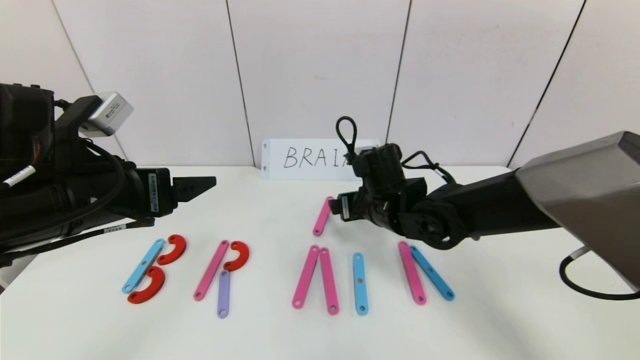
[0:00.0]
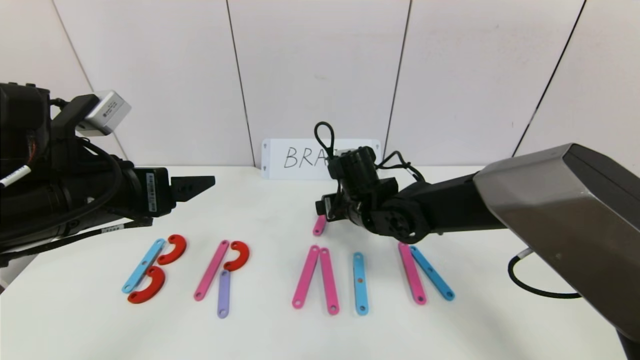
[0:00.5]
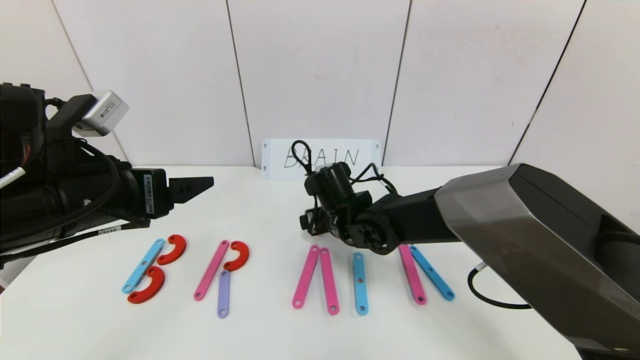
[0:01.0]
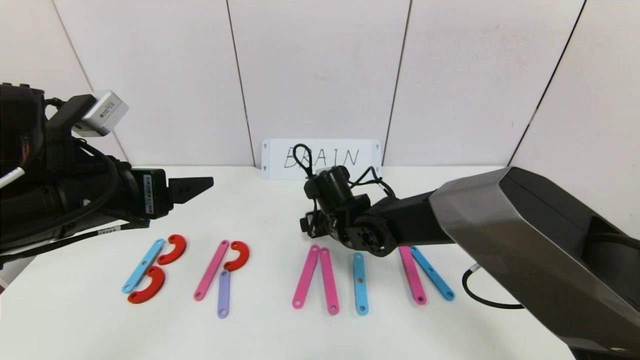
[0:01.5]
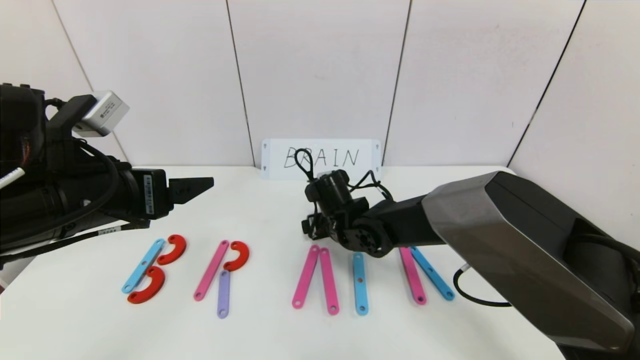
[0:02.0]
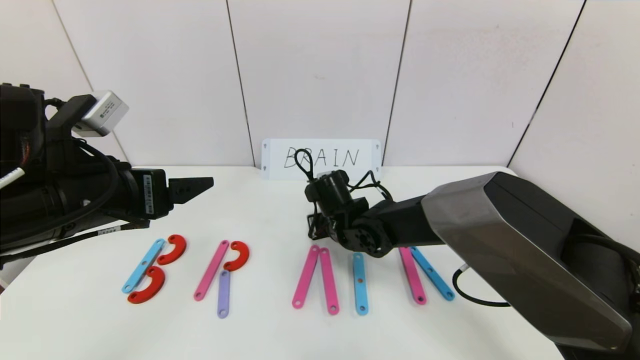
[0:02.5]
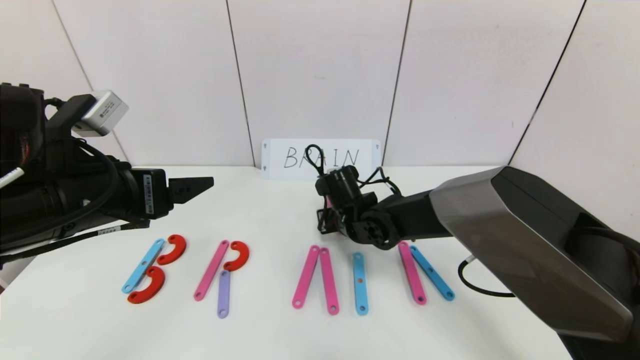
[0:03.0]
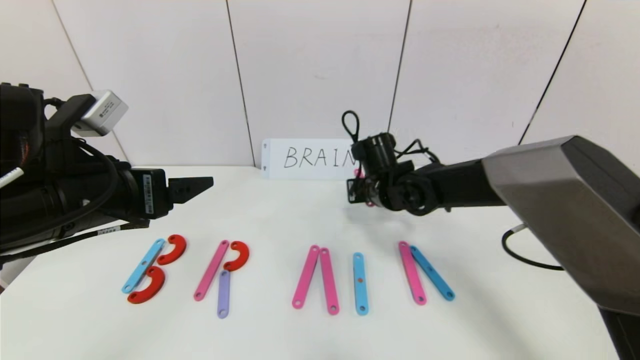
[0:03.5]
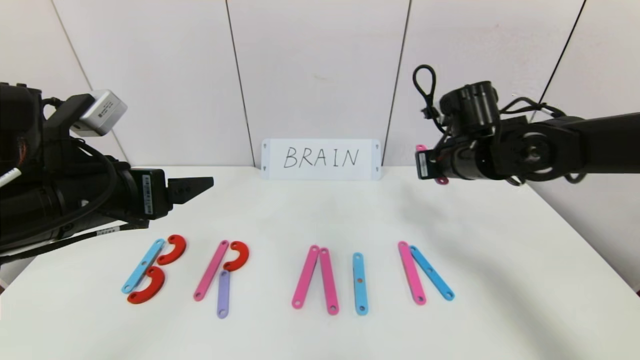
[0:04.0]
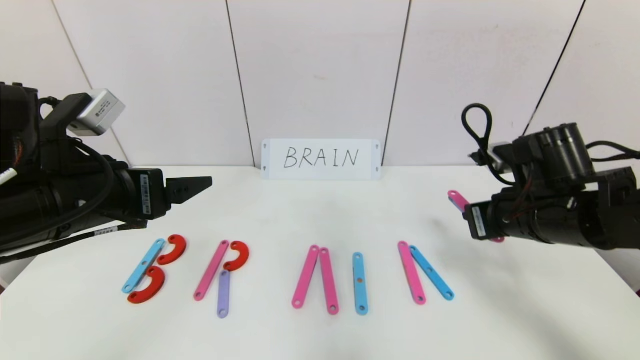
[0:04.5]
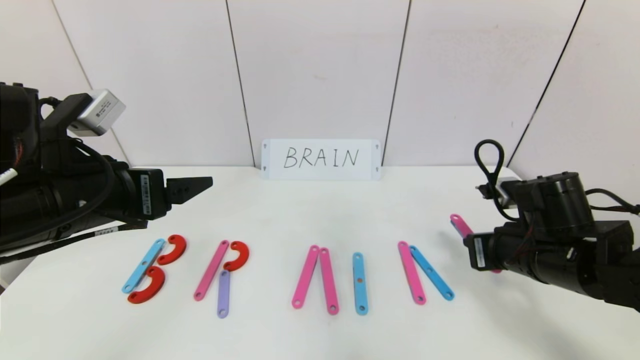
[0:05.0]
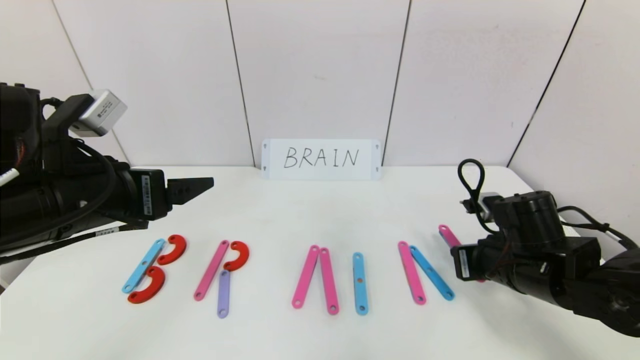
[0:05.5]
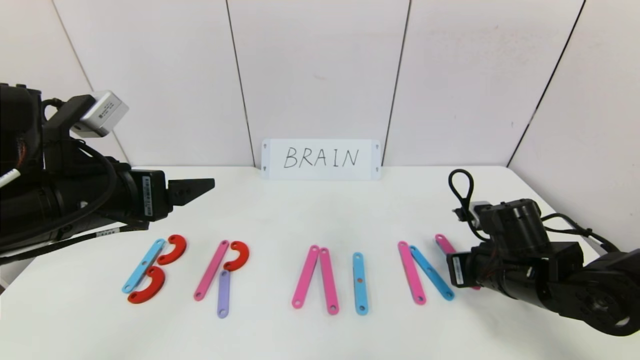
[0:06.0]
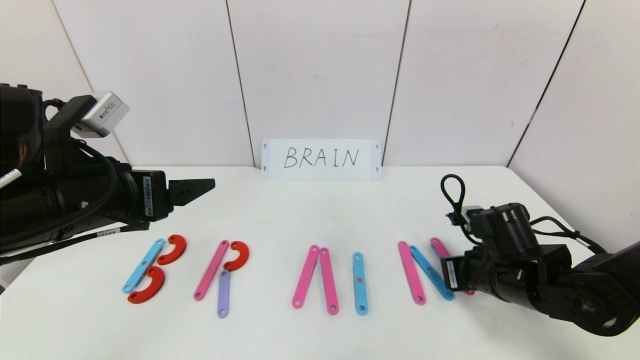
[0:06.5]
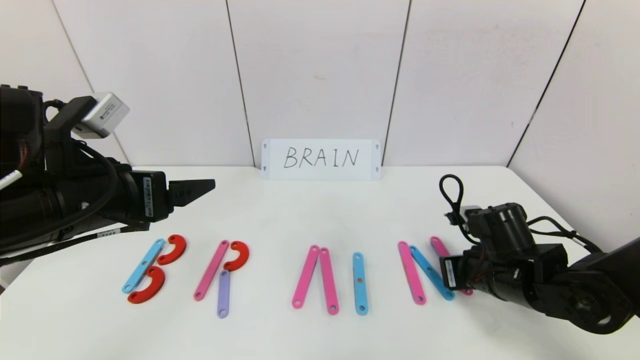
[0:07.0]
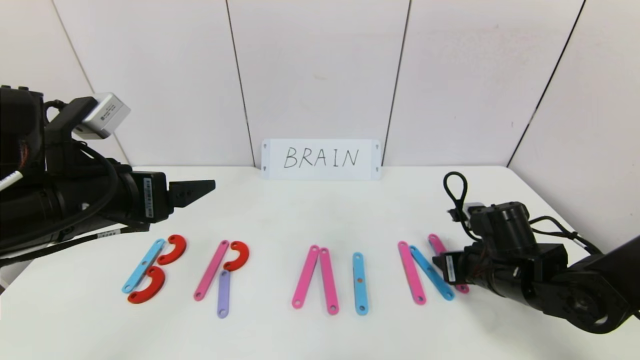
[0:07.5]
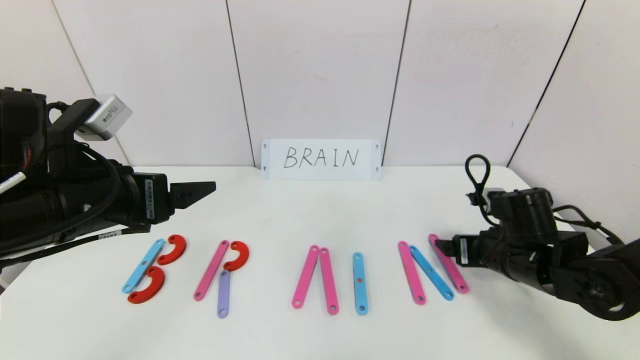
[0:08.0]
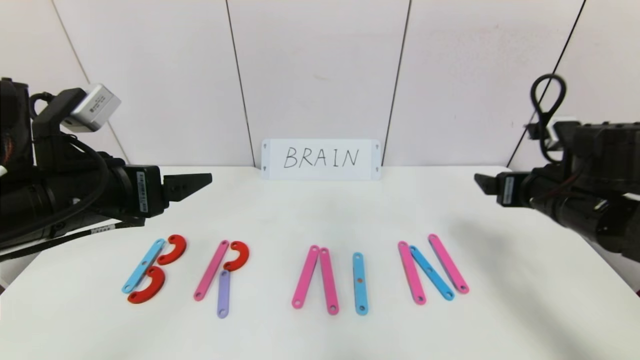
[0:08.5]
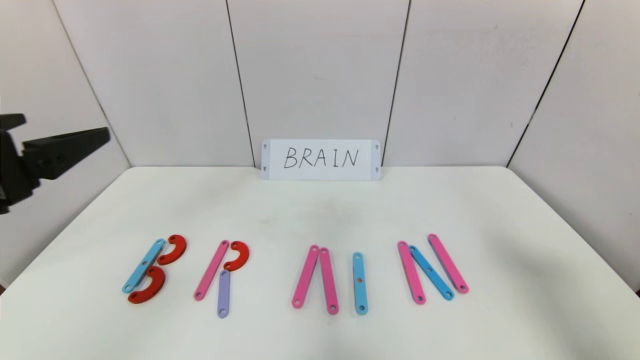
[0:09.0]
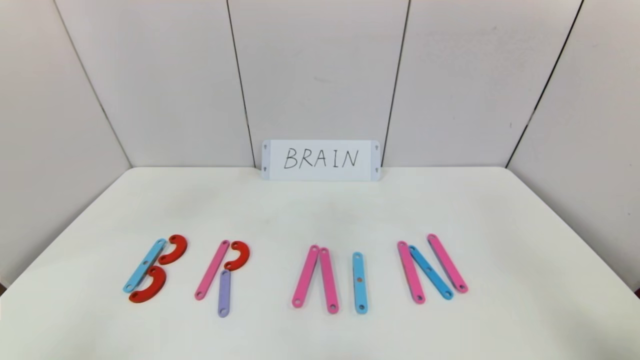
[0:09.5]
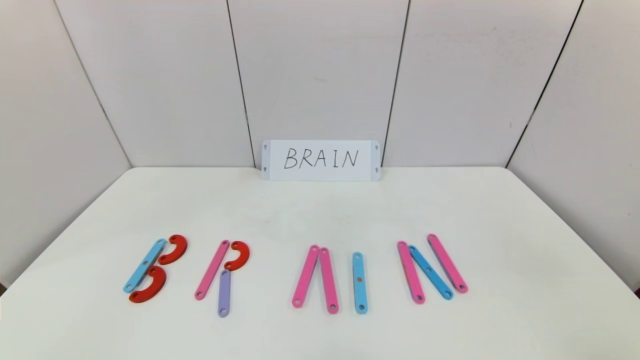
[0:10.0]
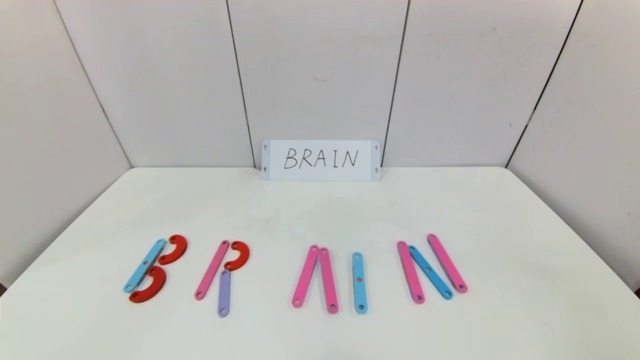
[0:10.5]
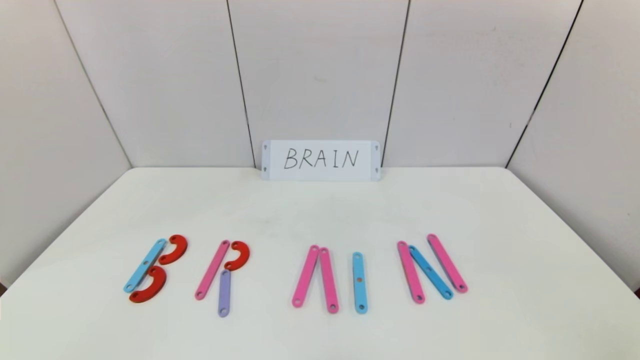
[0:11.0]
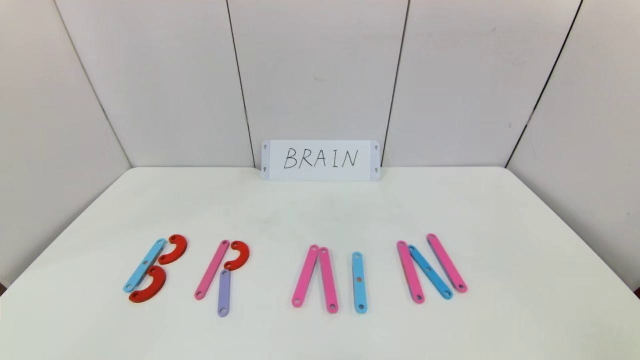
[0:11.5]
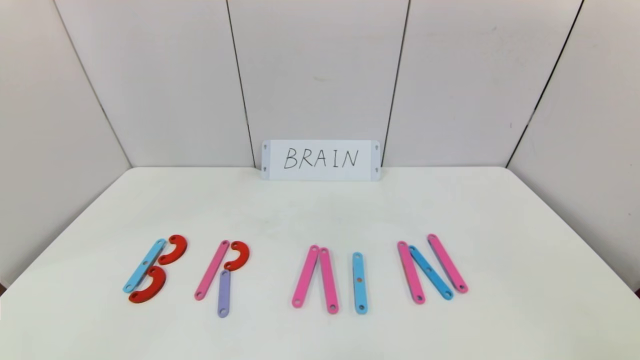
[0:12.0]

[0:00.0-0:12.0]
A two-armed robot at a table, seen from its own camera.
Task of the whole recording: rearrange the word baai as brain.
Step, 0:00.0 to 0:07.5: Place the character N after character I.
0:00.0 to 0:02.0: The right gripper heads to the left and downward, covering about 10 cm.
0:02.0 to 0:04.0: The right gripper is displaced to the right and upward by some 25 cm, and closes up.
0:04.0 to 0:06.0: The right gripper goes about 15 cm downward and backward.
0:06.0 to 0:08.0: The right gripper opens.
0:08.0 to 0:10.0: The right gripper moves backward and upward, some 40 cm. The left gripper moves backward, about 30 cm.

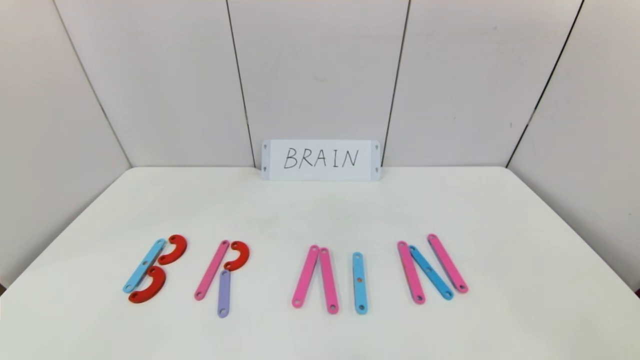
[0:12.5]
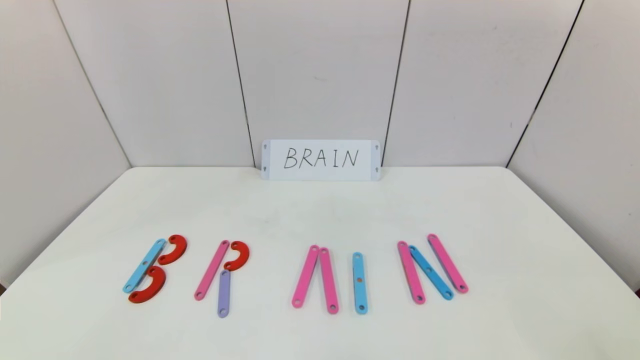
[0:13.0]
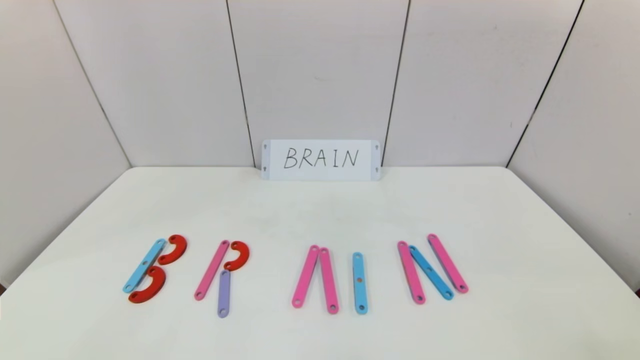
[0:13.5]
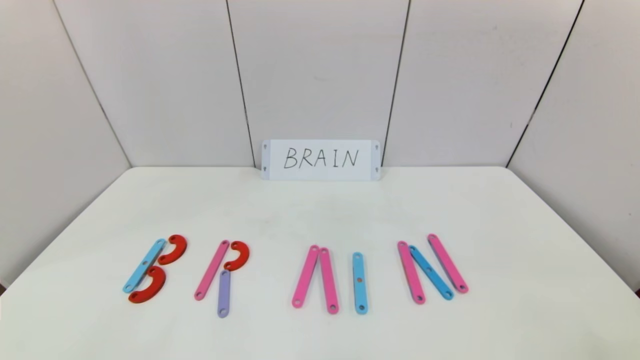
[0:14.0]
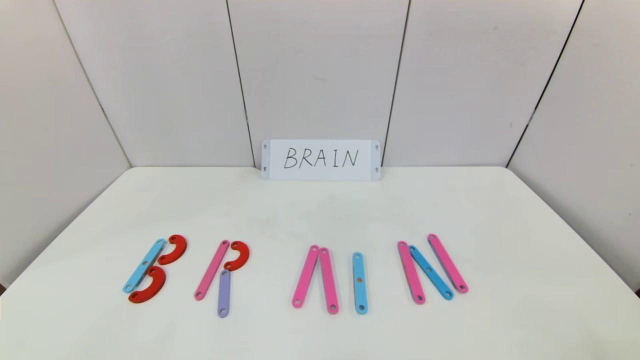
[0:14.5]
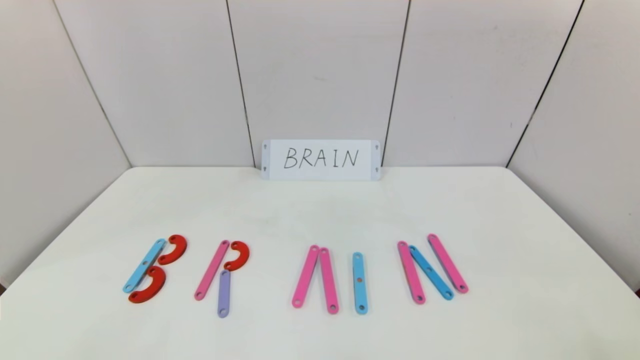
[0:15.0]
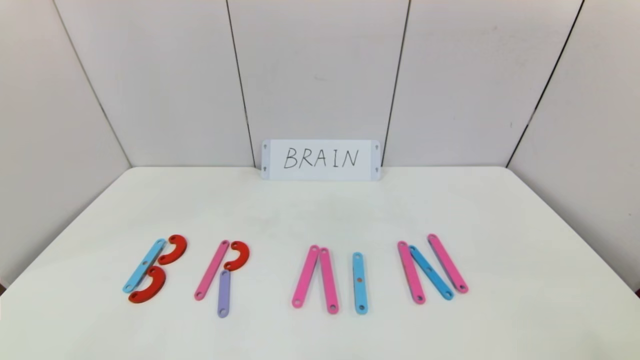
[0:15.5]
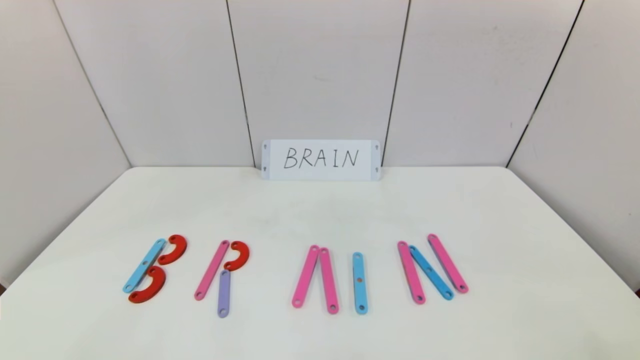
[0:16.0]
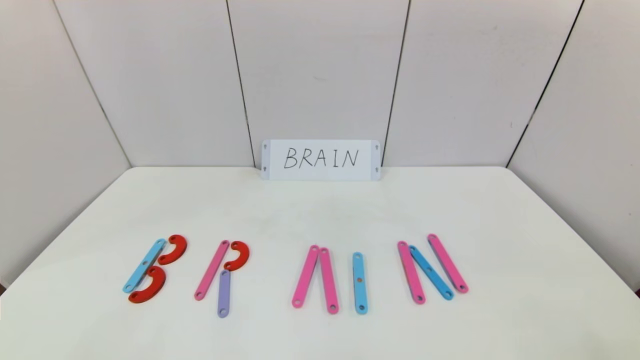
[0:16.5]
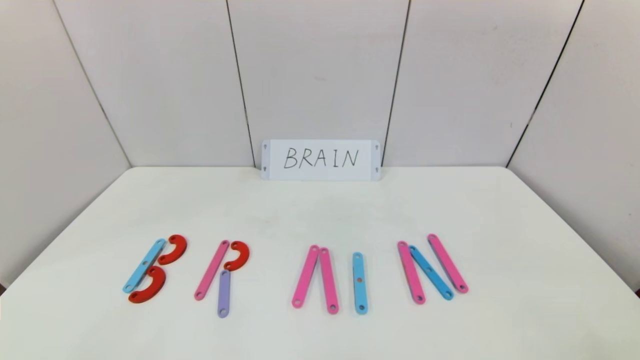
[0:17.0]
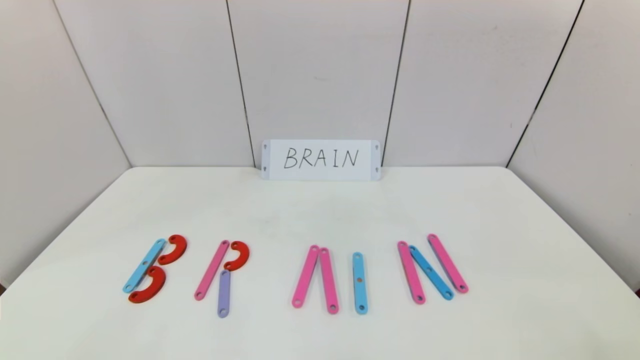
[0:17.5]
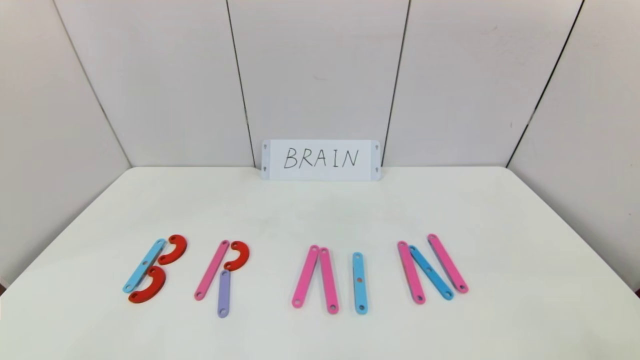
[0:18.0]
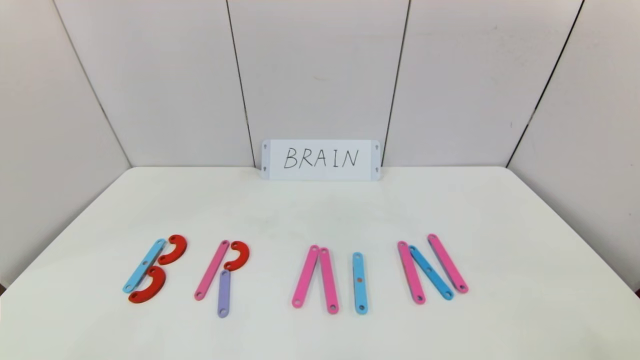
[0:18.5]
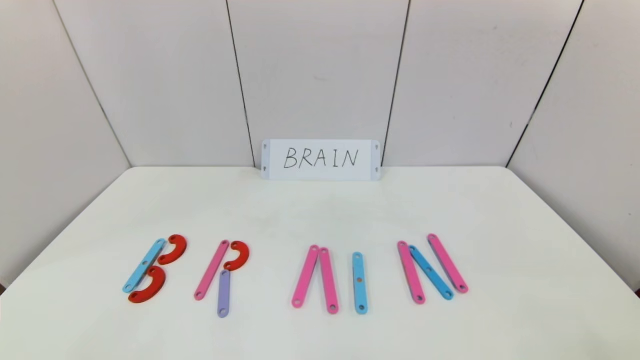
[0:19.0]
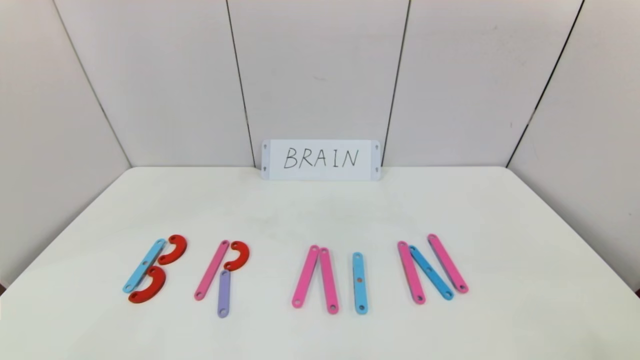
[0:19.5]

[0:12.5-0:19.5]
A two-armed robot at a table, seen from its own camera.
Task of the whole recording: rearrange the word baai as brain.
0:16.0 to 0:19.5: Both grippers stay about where they are.
